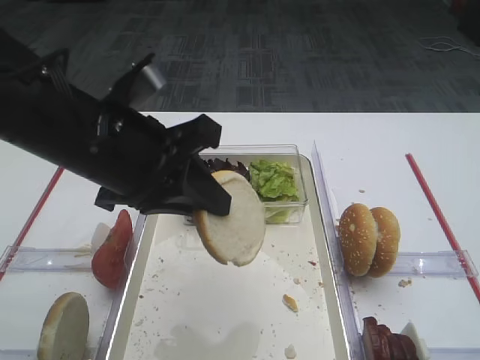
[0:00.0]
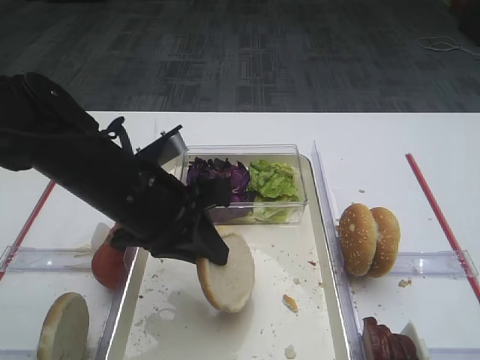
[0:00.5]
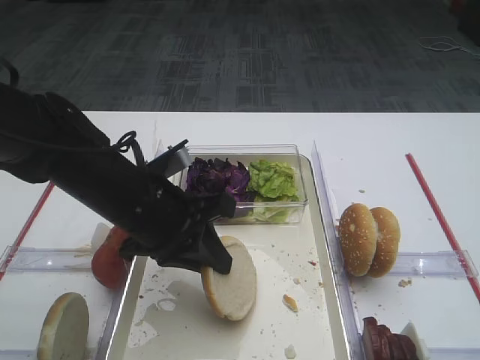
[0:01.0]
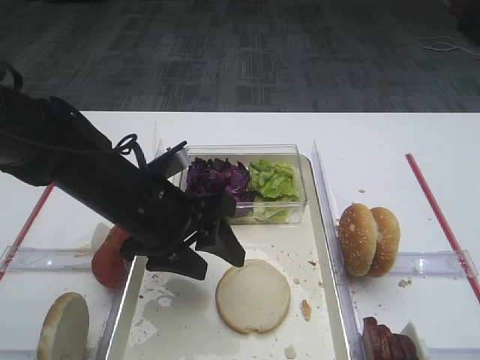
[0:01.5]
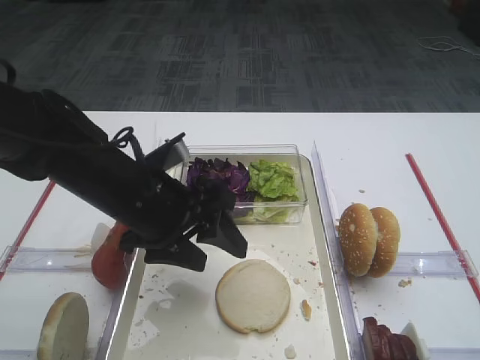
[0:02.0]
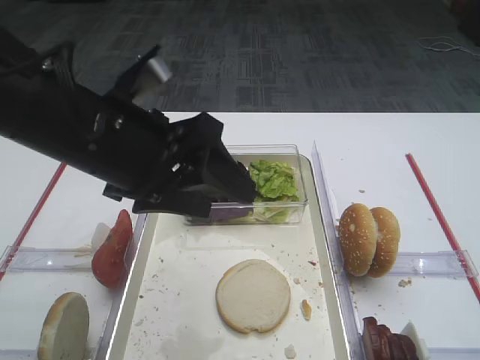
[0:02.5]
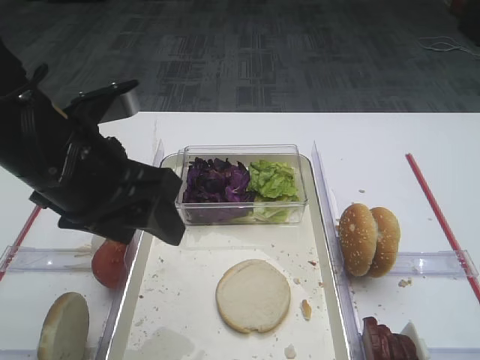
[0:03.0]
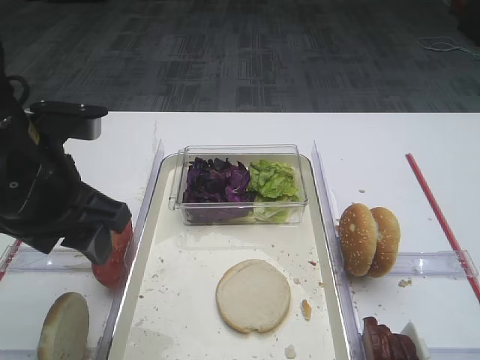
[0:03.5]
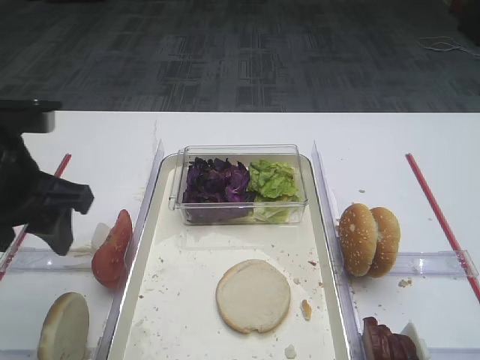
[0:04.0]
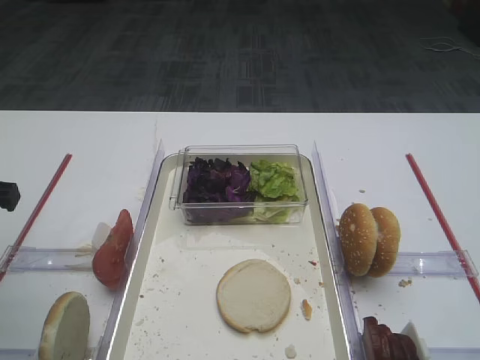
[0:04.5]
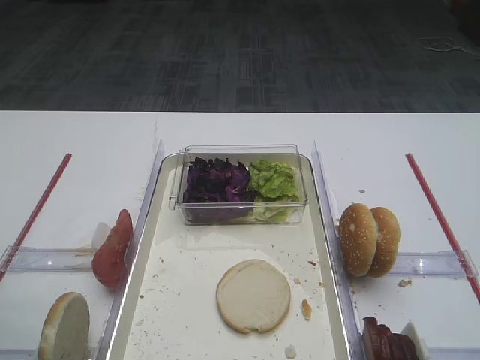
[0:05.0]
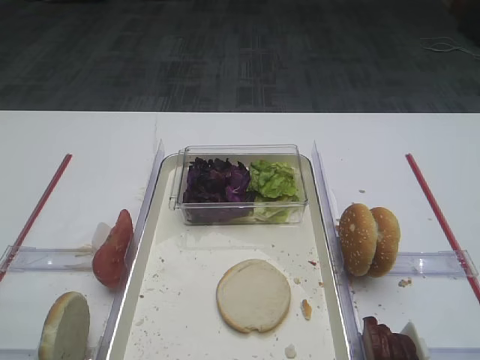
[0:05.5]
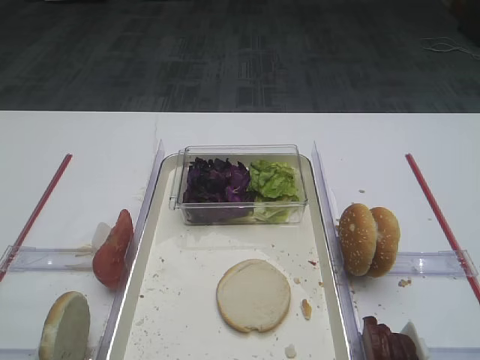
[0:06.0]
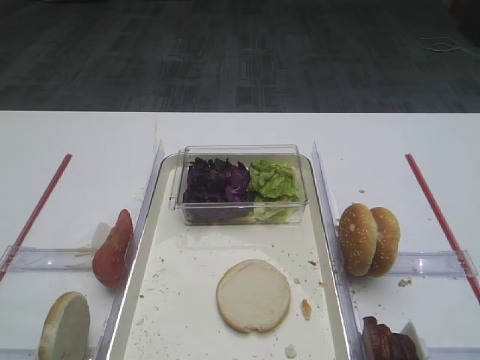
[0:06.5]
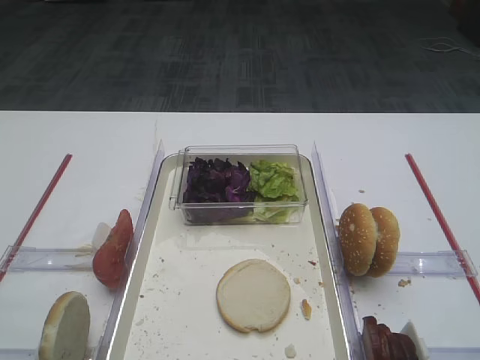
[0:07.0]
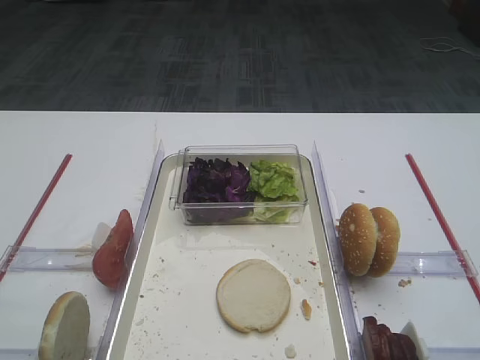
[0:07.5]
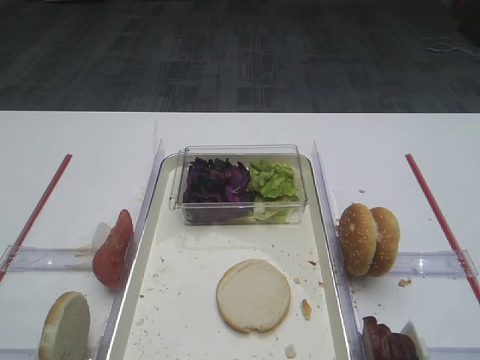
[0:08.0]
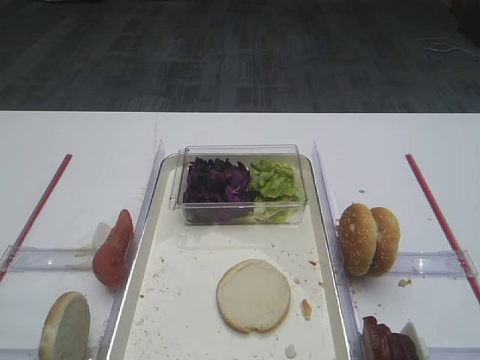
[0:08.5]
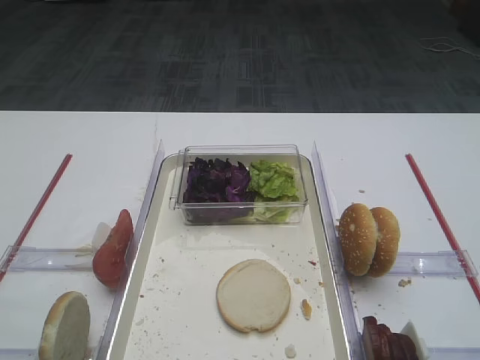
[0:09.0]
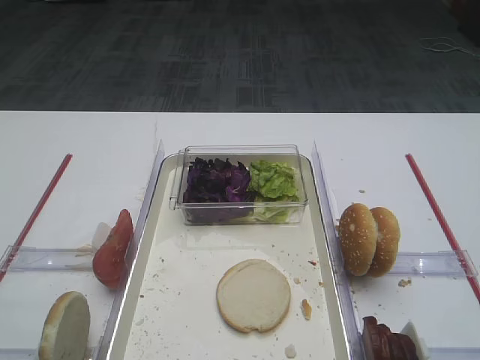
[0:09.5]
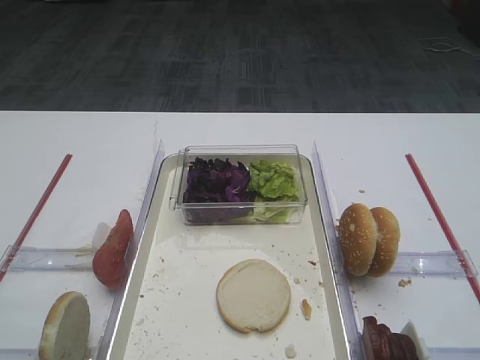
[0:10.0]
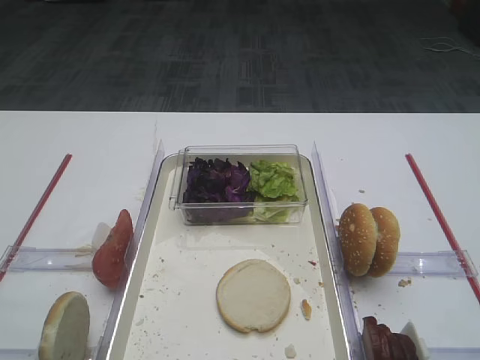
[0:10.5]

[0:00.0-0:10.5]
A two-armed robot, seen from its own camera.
Step, 0:00.0 to 0:02.0: Place the bread slice on the tray with the left gripper.
0:00.0 to 0:02.0: The left gripper goes about 10 cm downward, and opens.
0:02.0 to 0:04.0: The left gripper goes about 15 cm to the left and upward.
0:04.0 to 0:06.5: The left gripper travels backward by roughly 25 cm.
0:08.5 to 0:10.5: The two grippers keep their place.

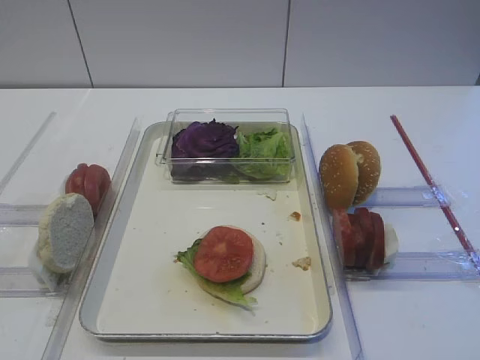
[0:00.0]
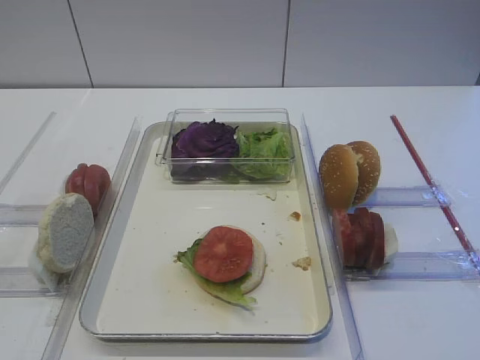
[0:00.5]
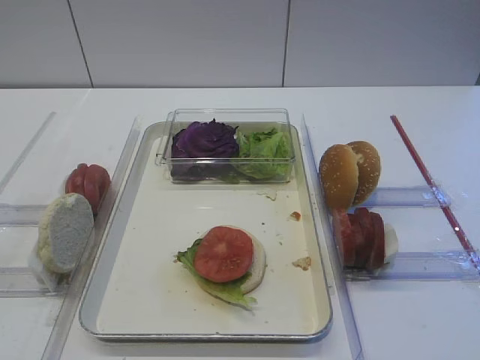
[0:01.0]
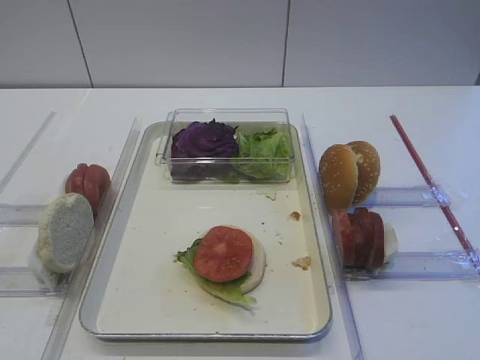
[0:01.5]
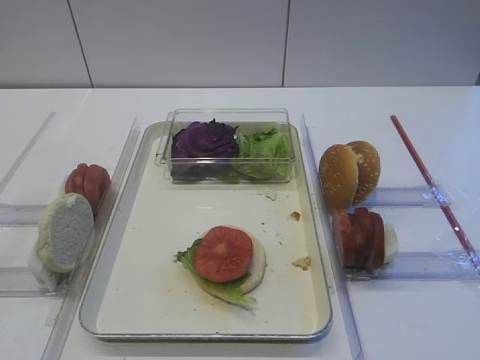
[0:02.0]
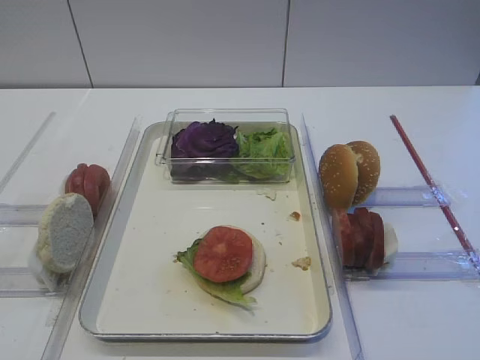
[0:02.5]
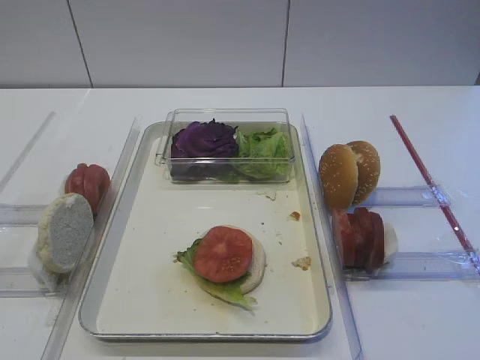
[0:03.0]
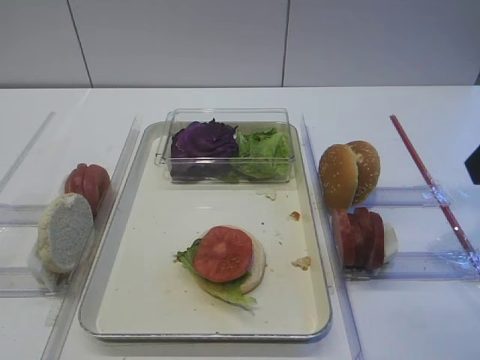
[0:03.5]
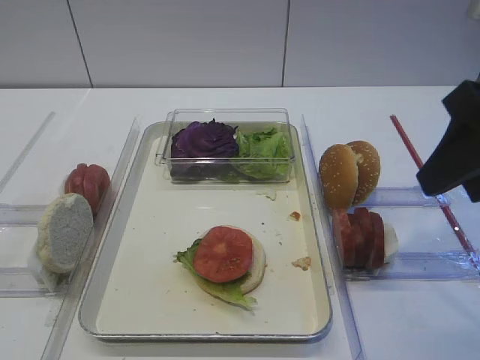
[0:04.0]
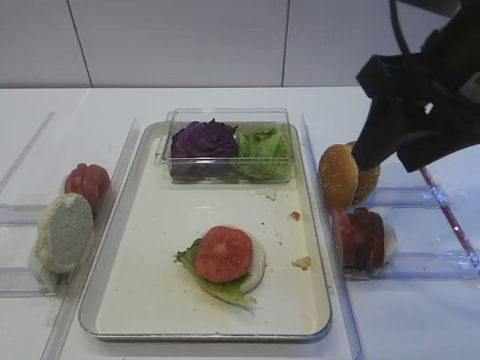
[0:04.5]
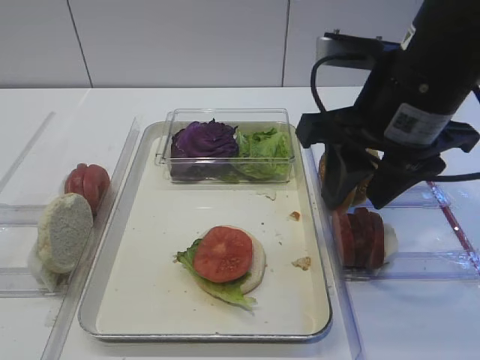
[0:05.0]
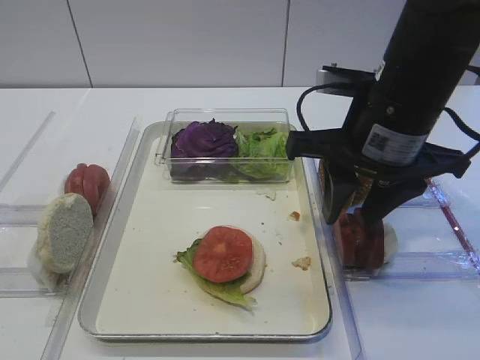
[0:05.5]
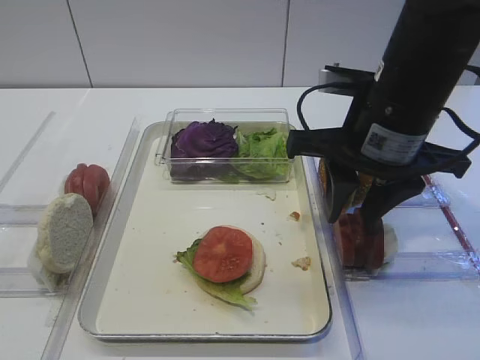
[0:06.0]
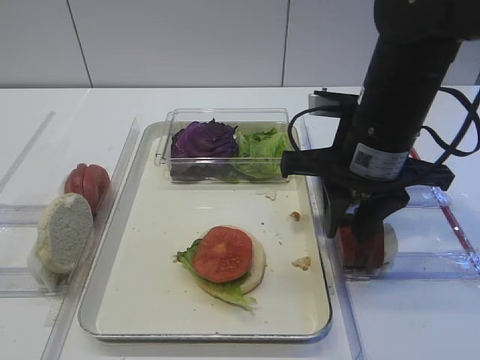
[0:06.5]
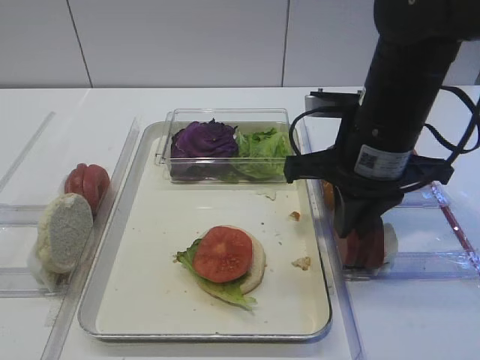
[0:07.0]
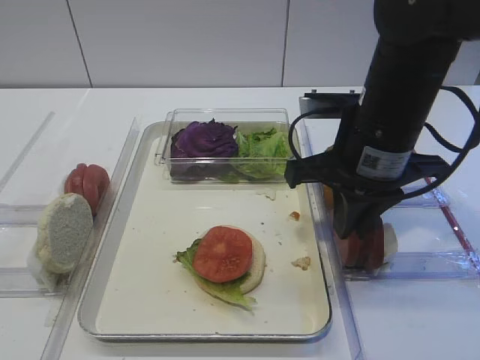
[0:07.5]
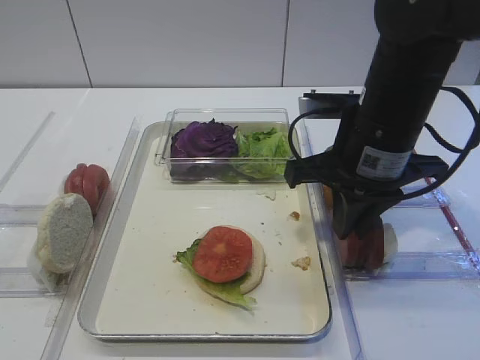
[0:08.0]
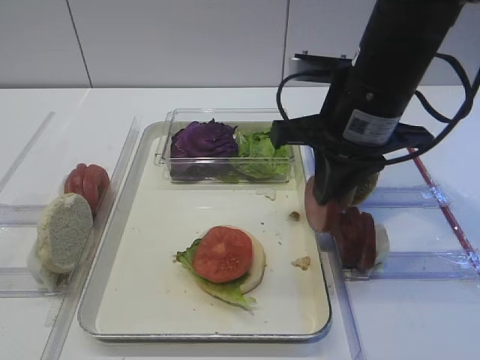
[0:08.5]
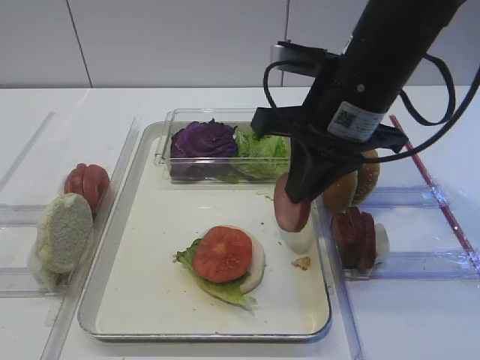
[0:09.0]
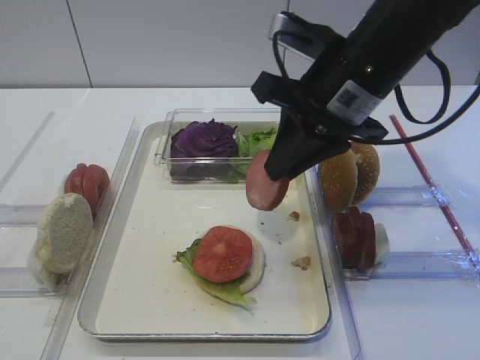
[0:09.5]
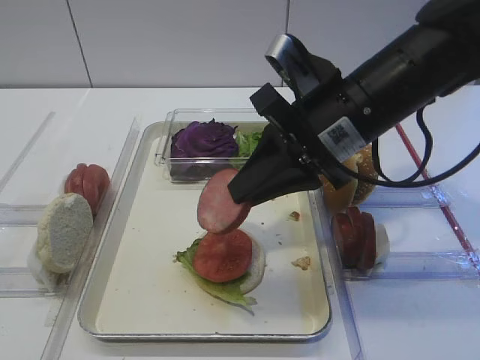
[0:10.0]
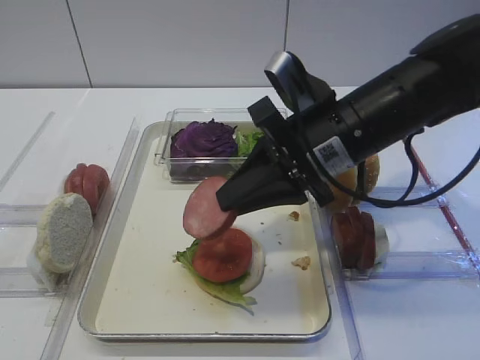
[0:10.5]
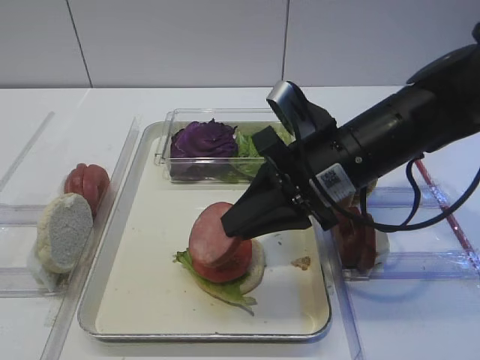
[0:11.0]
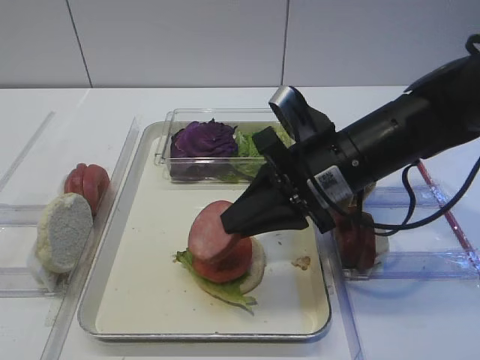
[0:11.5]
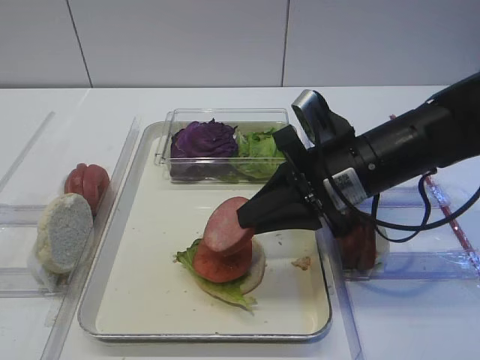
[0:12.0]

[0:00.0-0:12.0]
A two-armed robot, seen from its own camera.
Step, 0:00.0 to 0:08.0: Pick up the cutlet with the right gripper.
0:02.0 to 0:04.0: The right gripper is displaced forward by approximately 20 cm.
0:04.0 to 0:06.0: The right gripper shifts about 15 cm to the left, forward and downward.
0:06.0 to 0:08.0: The right gripper closes up.
0:10.0 to 0:12.0: The right gripper goes roughly 5 cm downward.

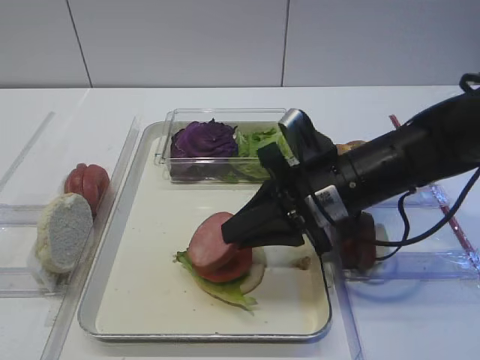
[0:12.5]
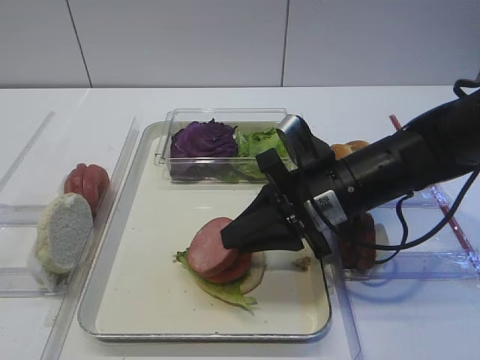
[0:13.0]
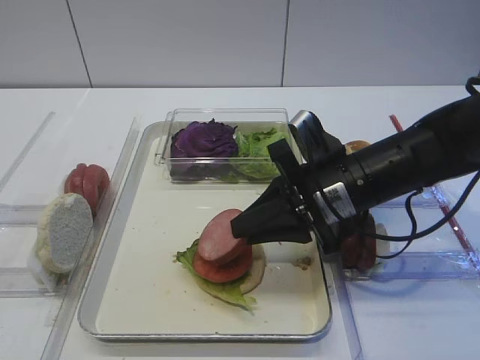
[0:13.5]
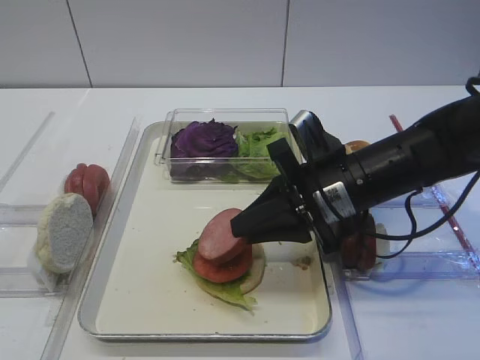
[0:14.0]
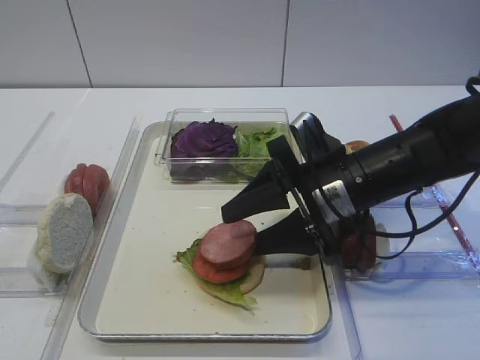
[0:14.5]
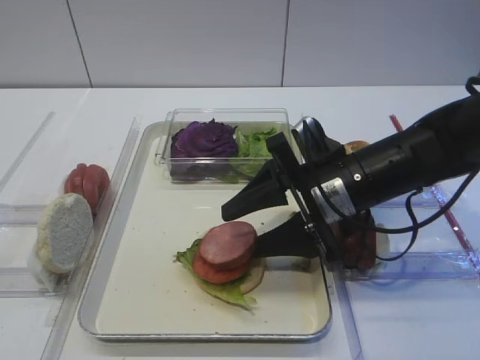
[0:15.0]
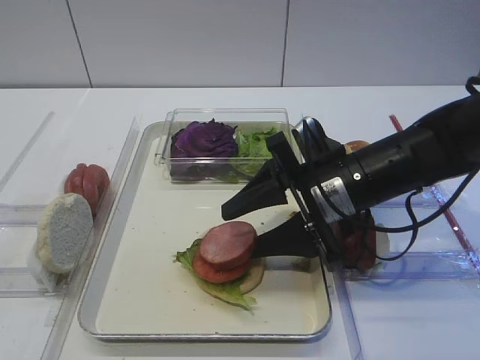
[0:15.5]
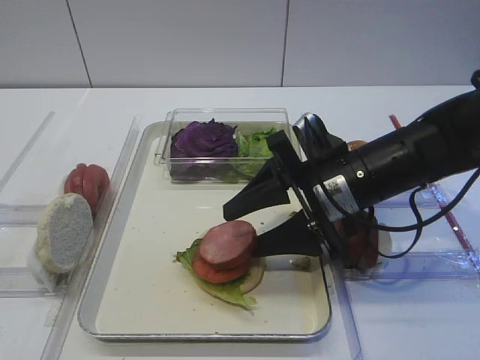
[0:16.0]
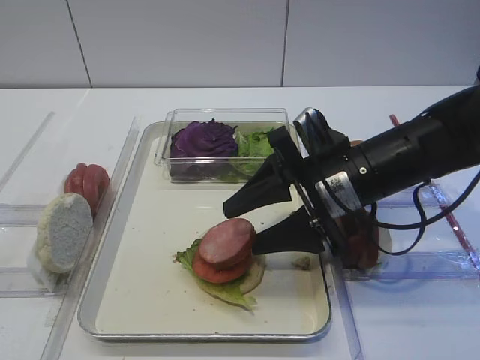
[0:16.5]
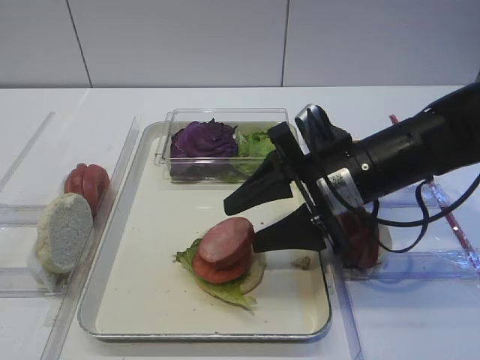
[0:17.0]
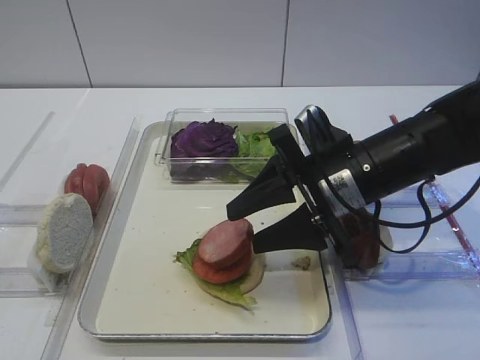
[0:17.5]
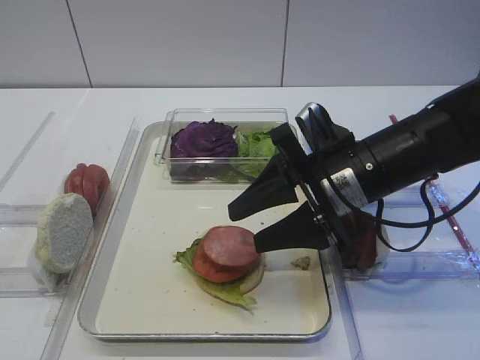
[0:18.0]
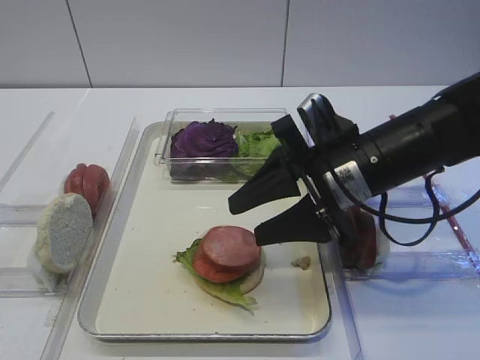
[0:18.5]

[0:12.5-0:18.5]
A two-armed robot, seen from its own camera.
Step, 0:12.5 to 0:17.5: Place the cutlet on the tomato slice with the right gripper.
0:12.5 to 0:14.5: The right gripper opens up.
0:14.5 to 0:18.5: The grippers make only small movements.
